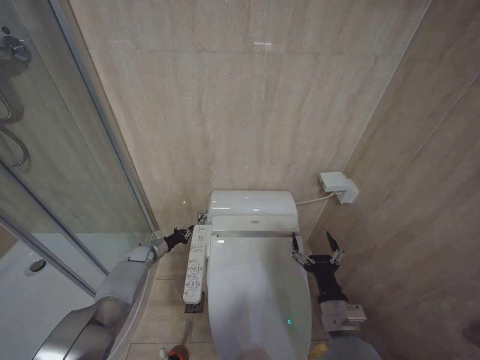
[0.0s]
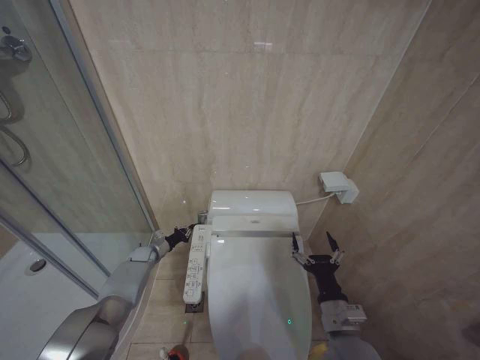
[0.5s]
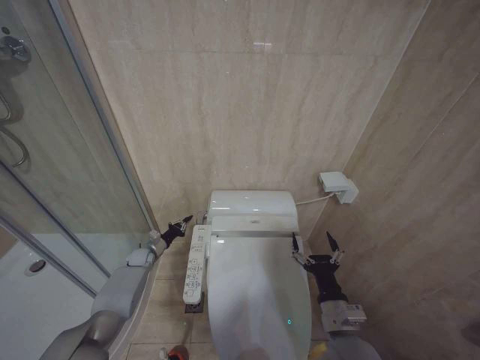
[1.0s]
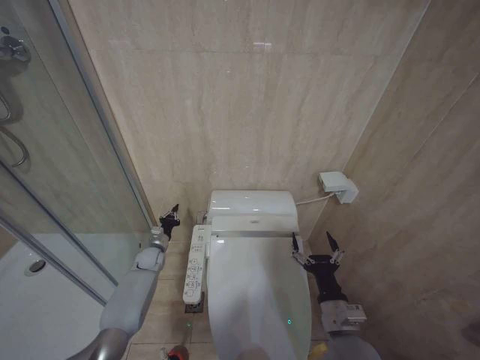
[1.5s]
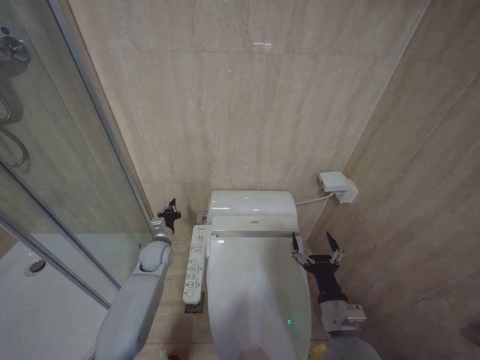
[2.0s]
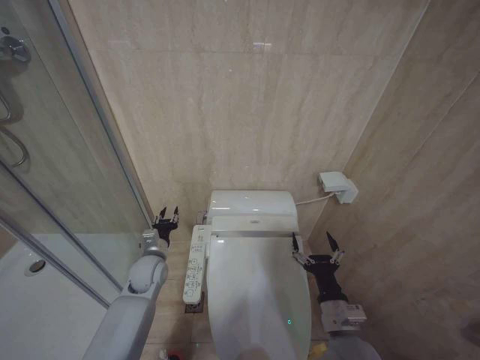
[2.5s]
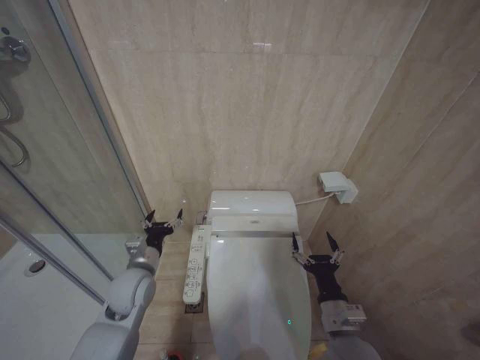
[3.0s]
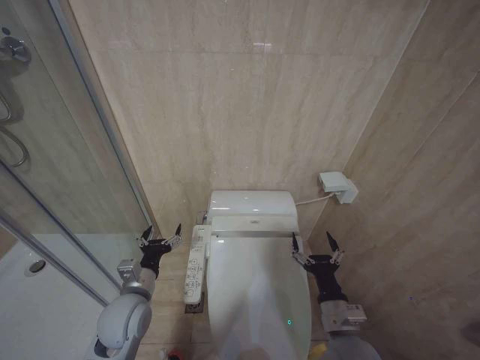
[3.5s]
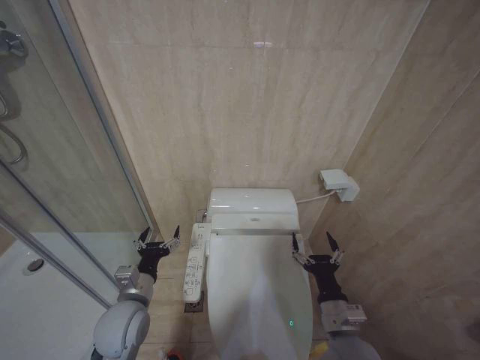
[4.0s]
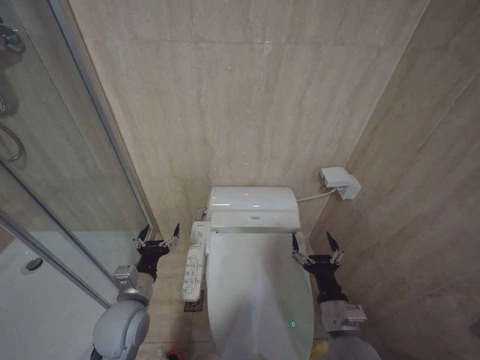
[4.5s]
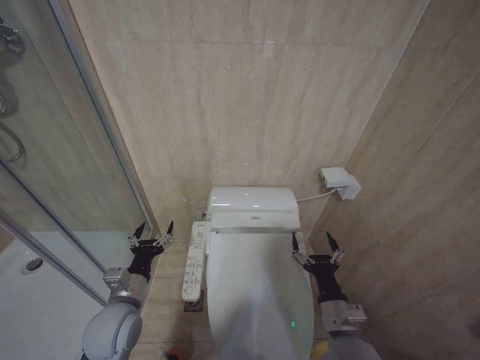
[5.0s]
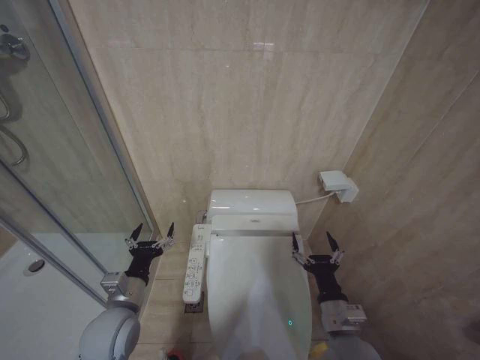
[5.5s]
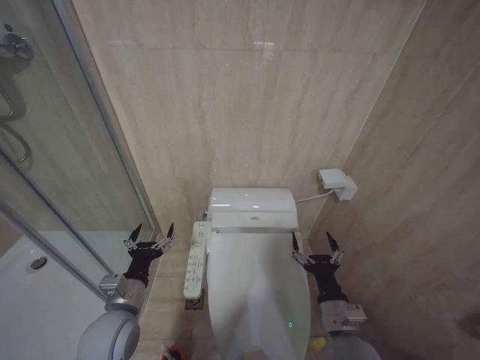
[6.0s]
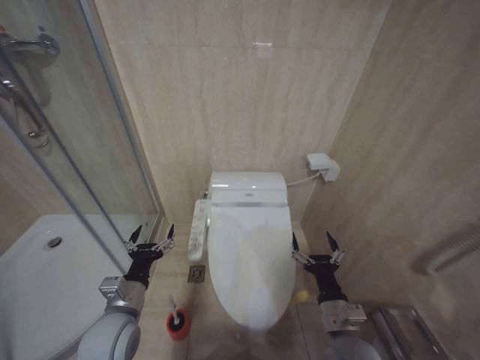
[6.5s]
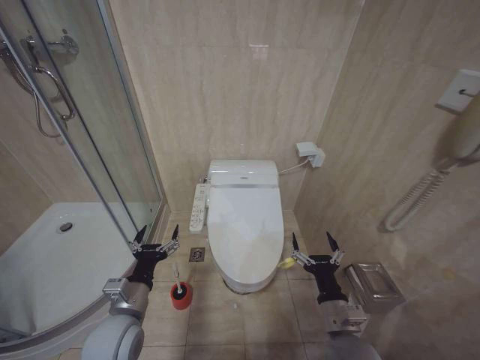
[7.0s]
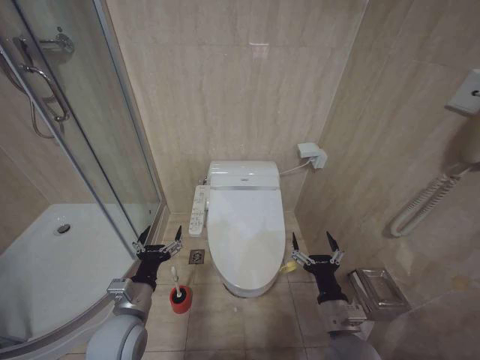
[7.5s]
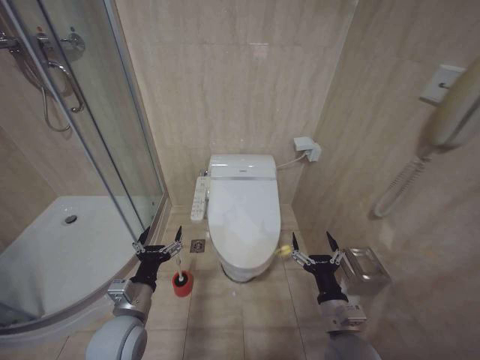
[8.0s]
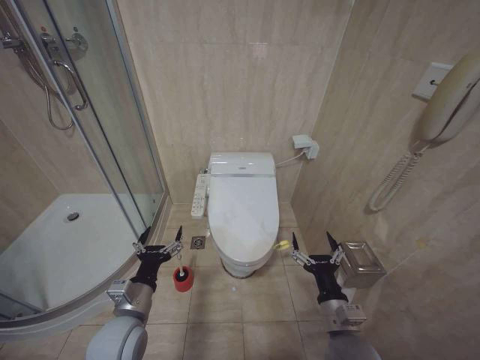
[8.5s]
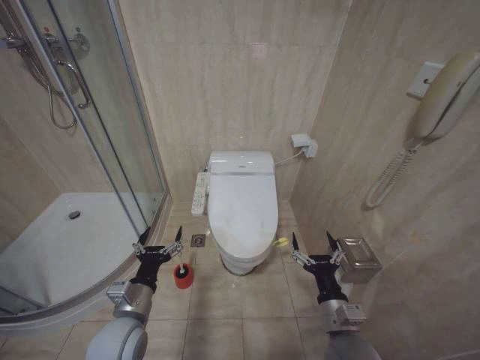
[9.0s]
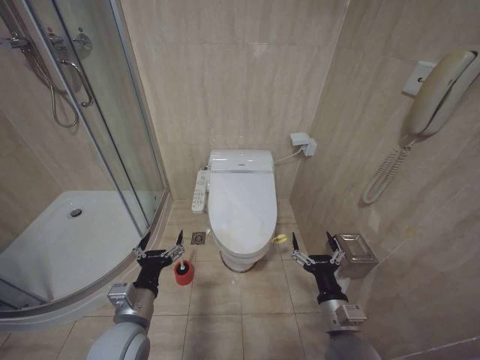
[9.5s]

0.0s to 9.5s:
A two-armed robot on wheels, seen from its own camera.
Task of the whole recording: Open the toilet lid, clean the toilet bowl with a toilet brush, close the toilet lid, and flush.
0.0s to 2.0s: The left gripper heads to the right, upward and backward, covering some 15 cm.
2.0s to 4.0s: The left gripper moves backward, some 20 cm, and opens up.
4.0s to 5.5s: The grippers move only a little.
7.5s to 9.5s: The grippers stay close to where they were, moving slightly.

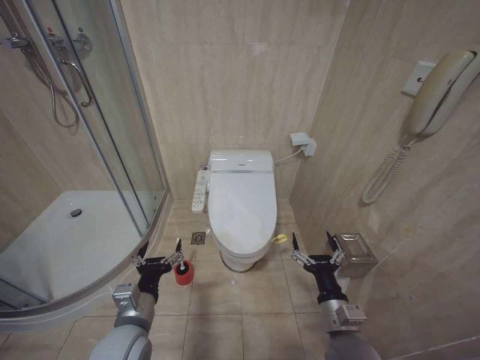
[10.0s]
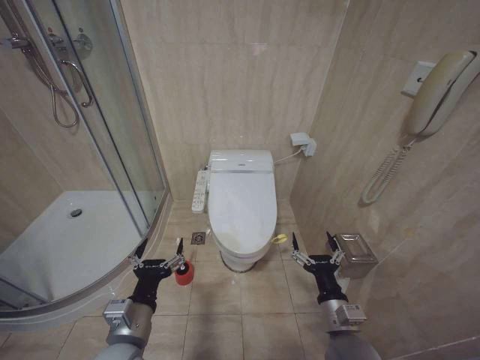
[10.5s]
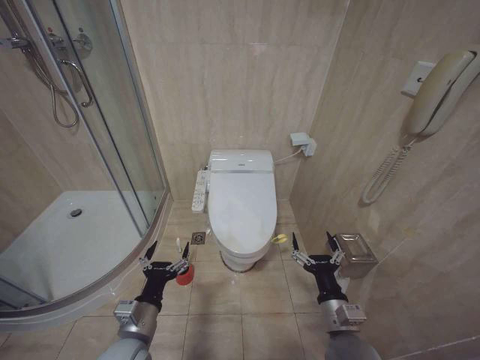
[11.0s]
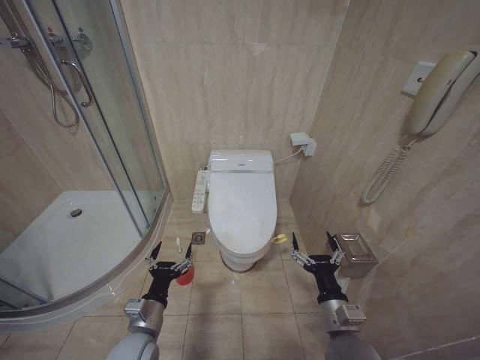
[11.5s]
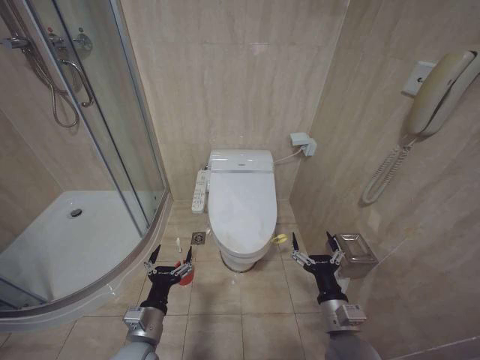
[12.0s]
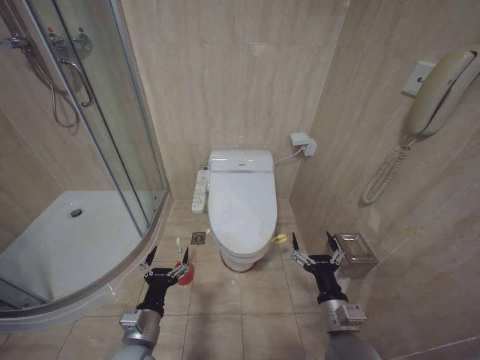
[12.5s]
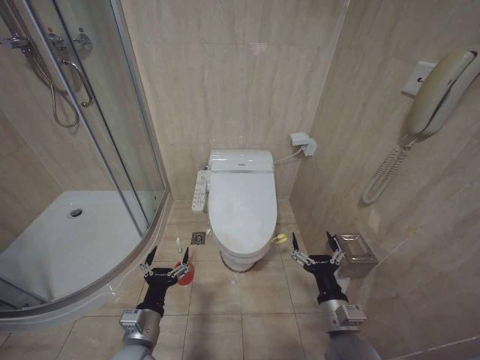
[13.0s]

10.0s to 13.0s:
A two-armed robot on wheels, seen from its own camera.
Task of the whole recording: Open the toilet lid, clean the toilet bowl with a toilet brush, close the toilet lid, and flush.
10.0s to 11.5s: The left gripper goes approximately 5 cm downward.
11.5s to 13.0s: The grippers move only a little.

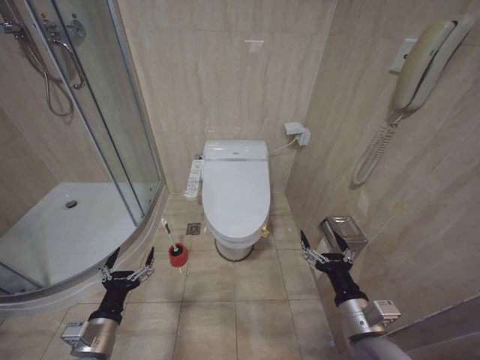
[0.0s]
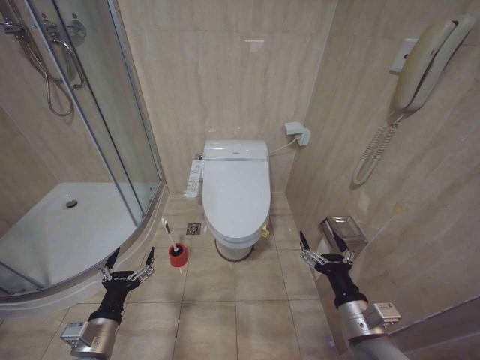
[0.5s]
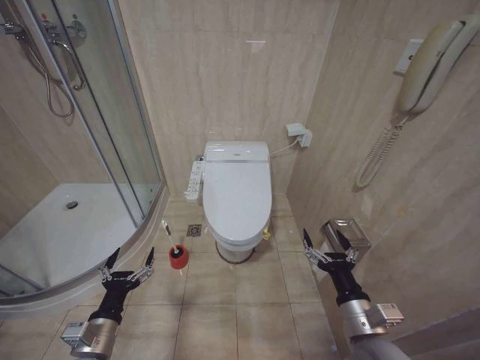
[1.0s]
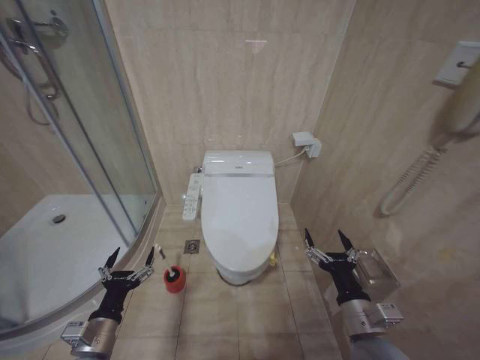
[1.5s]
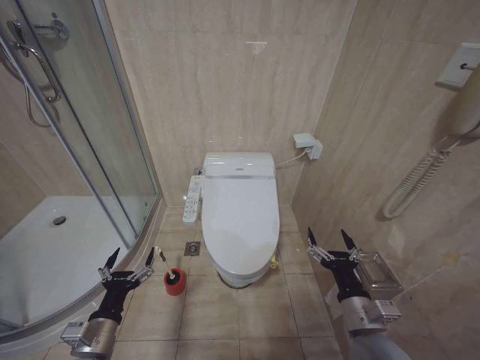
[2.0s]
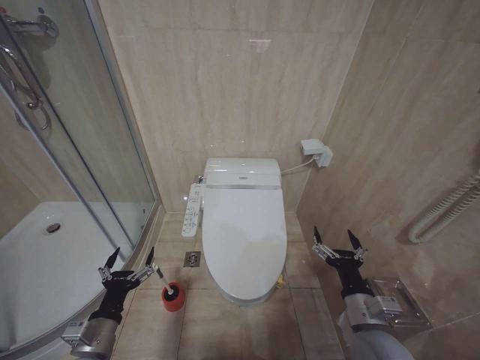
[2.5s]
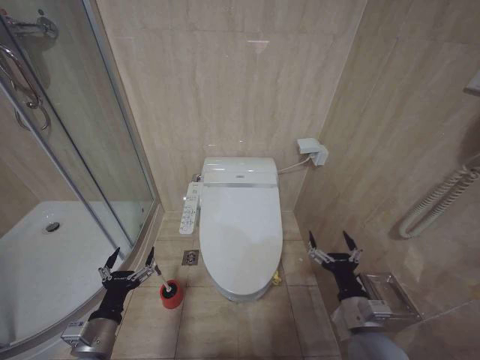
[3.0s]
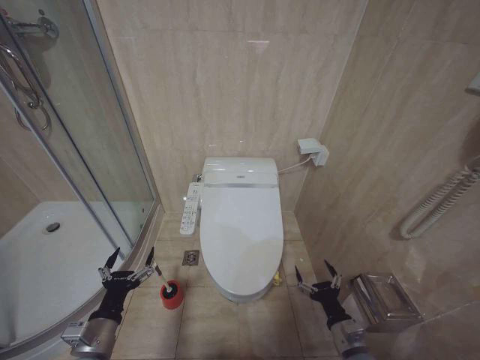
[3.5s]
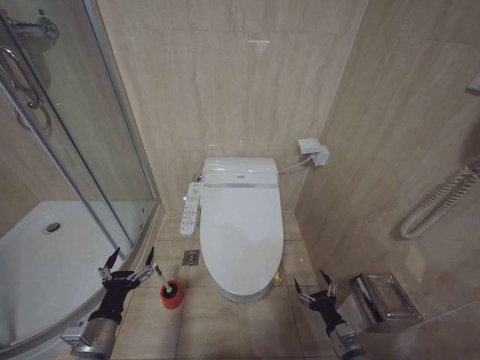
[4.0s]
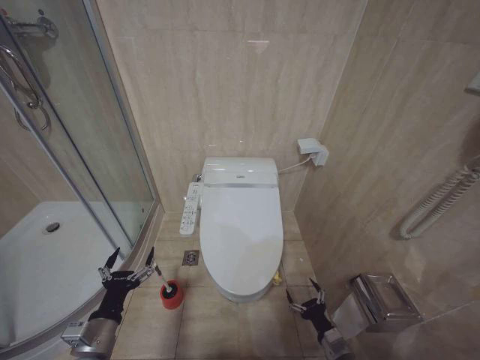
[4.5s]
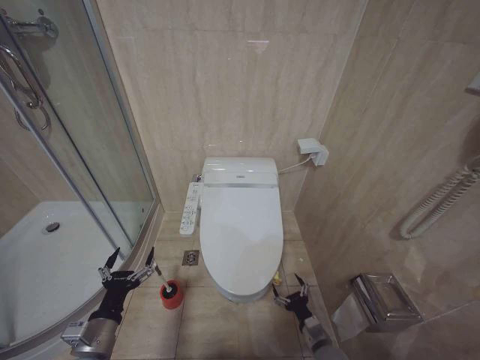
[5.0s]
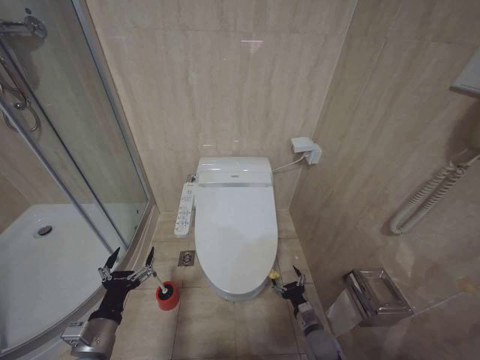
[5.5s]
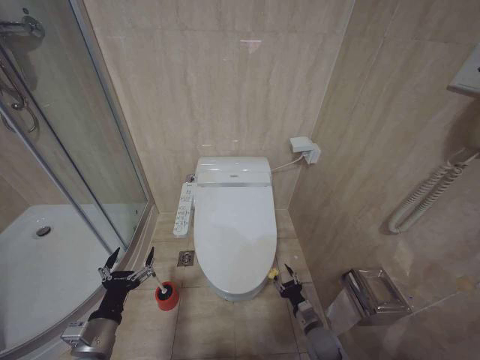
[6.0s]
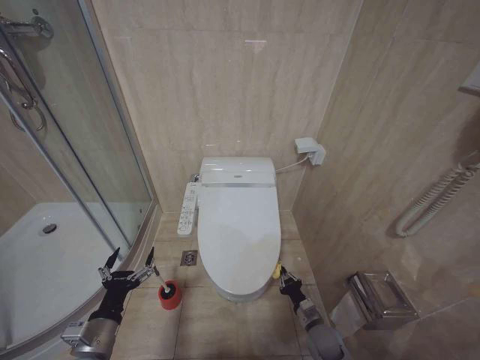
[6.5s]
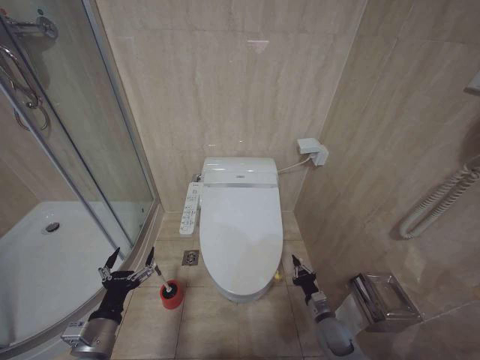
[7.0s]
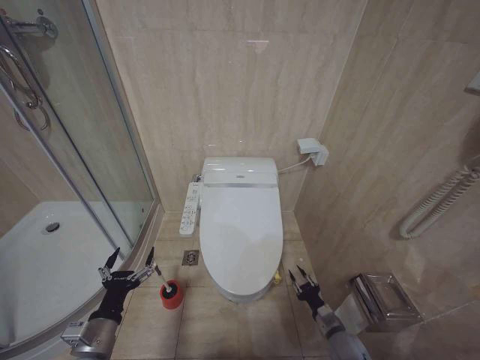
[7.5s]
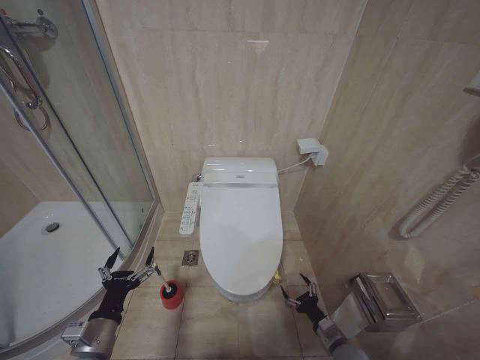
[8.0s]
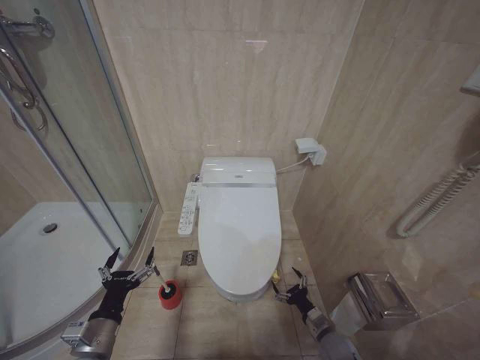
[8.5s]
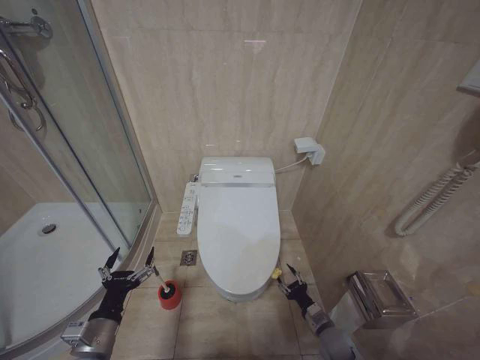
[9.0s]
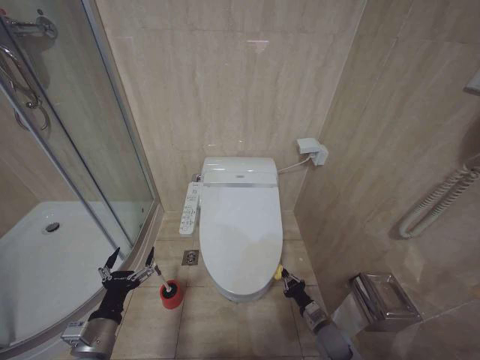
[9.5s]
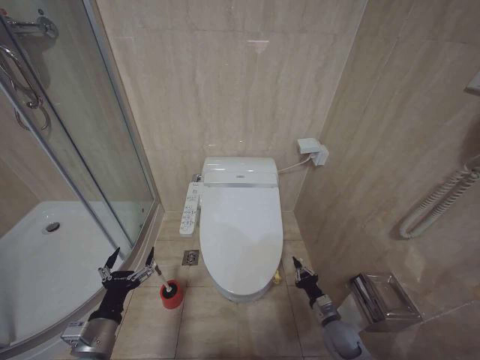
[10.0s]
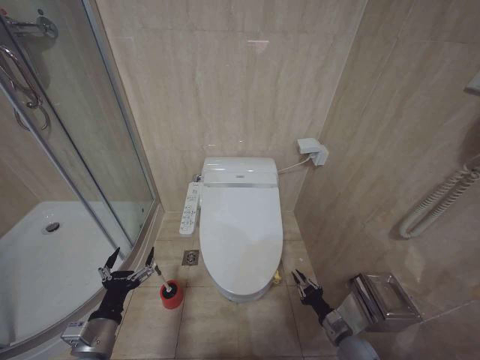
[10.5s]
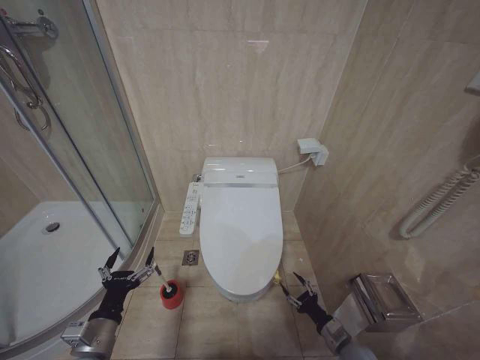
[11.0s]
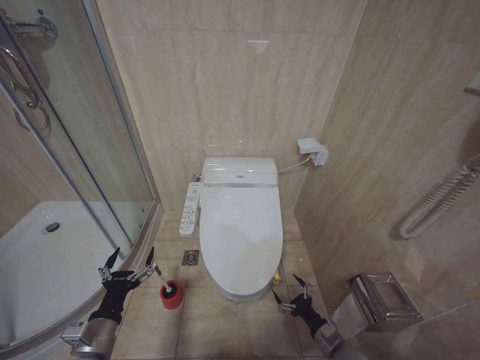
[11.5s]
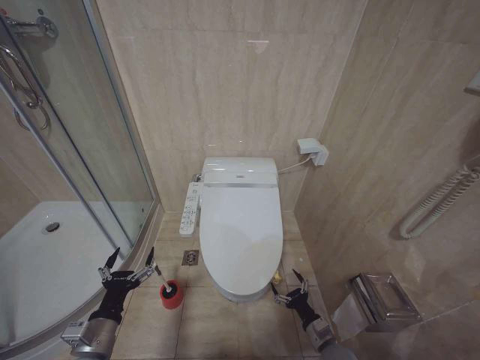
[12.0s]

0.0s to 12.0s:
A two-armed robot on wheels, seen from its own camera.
Task of the whole recording: Open the toilet lid, clean the toilet bowl with a toilet brush, close the toilet lid, and flush.
2.0s to 4.0s: The right gripper shifts approximately 15 cm downward.
4.0s to 6.0s: The right gripper heads forward and downward, covering approximately 10 cm.
6.0s to 8.0s: The right gripper goes roughly 5 cm to the right, and closes and opens again.
8.0s to 10.0s: The right gripper travels forward by some 5 cm, and closes its fingers.
10.0s to 12.0s: The right gripper moves roughly 5 cm, and opens.

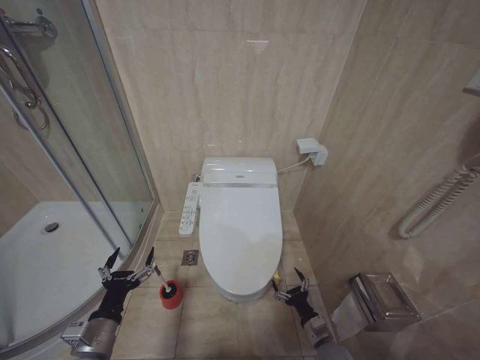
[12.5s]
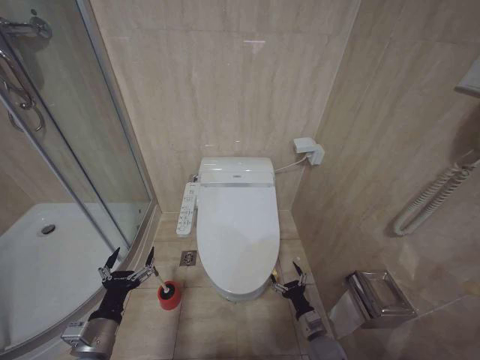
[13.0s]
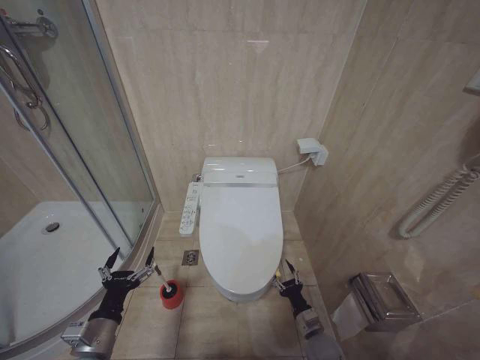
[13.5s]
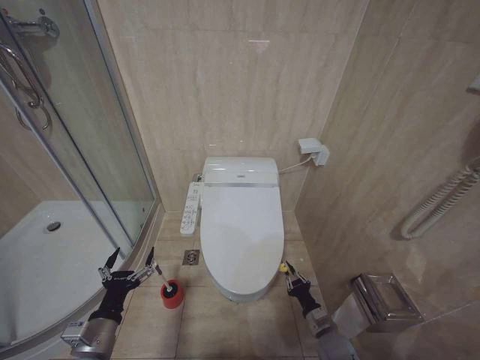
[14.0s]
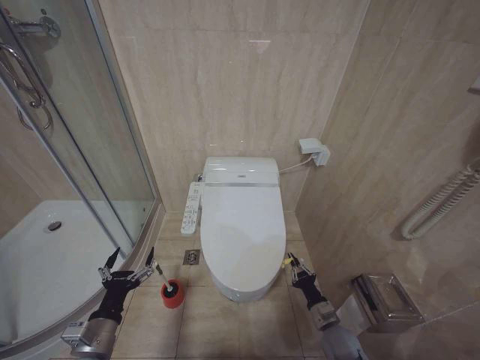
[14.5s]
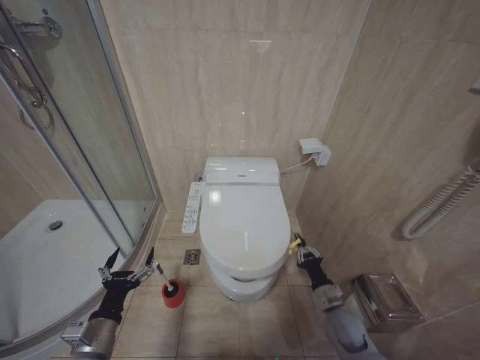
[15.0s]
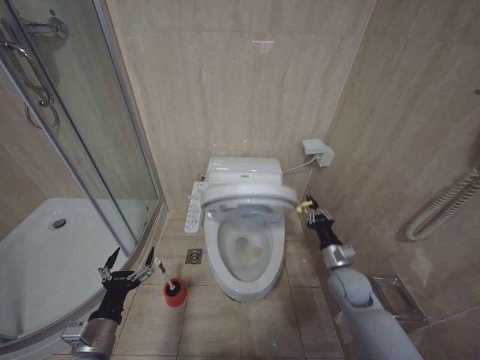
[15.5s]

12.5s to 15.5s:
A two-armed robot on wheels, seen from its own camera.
Task of the whole recording: Open the toilet lid, clean the toilet bowl with a toilet brush, close the toilet lid, and flush.
12.5s to 14.0s: The right gripper closes its fingers.
14.0s to 15.5s: The right gripper heads upward and forward, covering roughly 20 cm.
